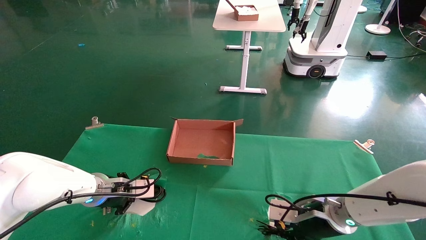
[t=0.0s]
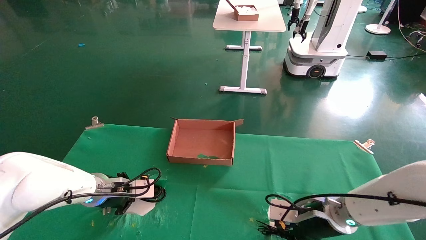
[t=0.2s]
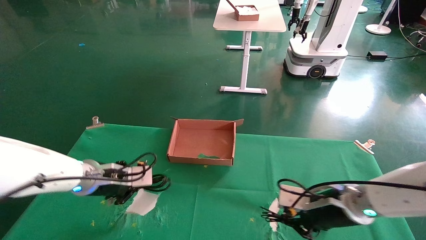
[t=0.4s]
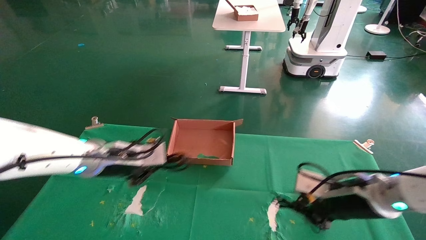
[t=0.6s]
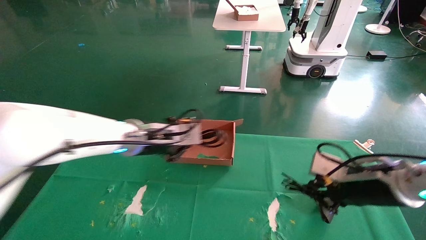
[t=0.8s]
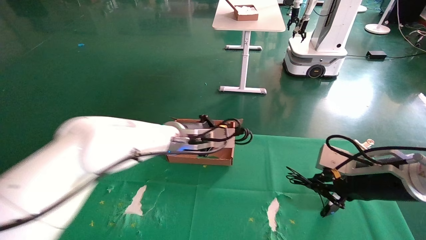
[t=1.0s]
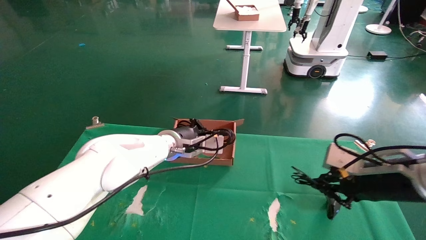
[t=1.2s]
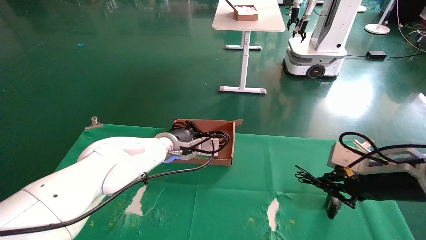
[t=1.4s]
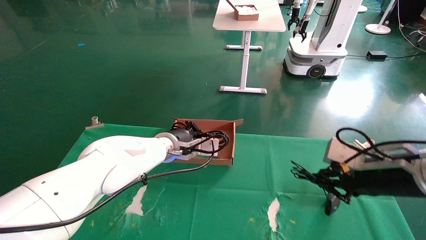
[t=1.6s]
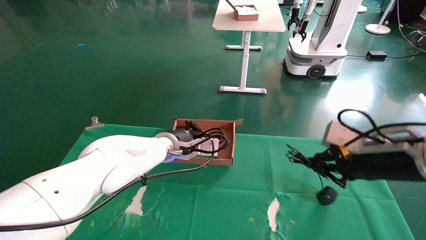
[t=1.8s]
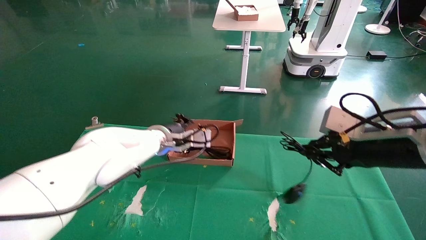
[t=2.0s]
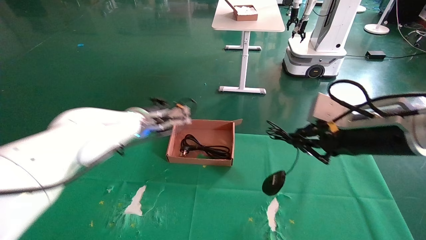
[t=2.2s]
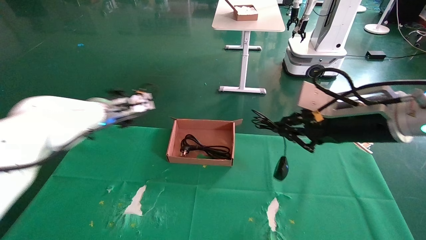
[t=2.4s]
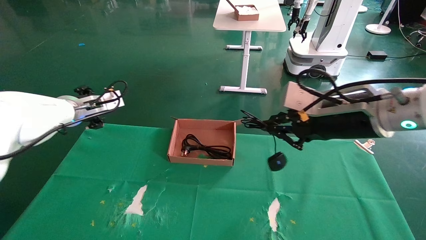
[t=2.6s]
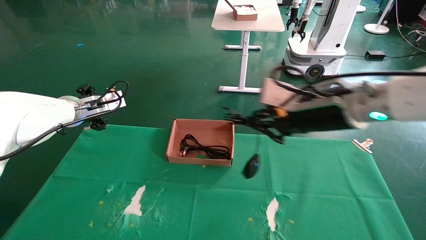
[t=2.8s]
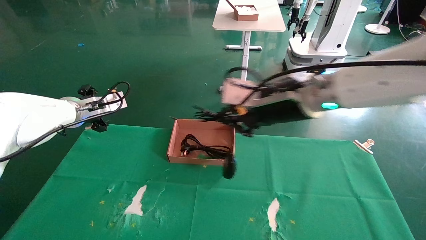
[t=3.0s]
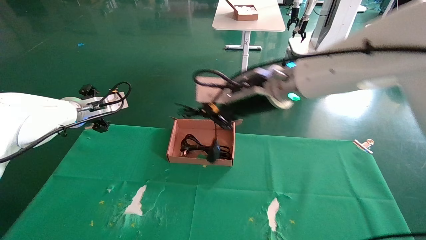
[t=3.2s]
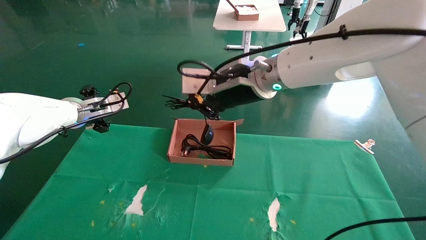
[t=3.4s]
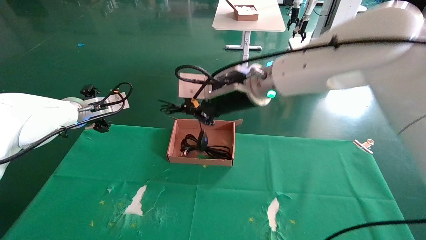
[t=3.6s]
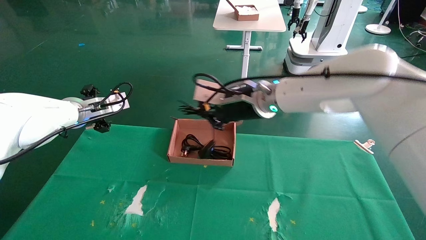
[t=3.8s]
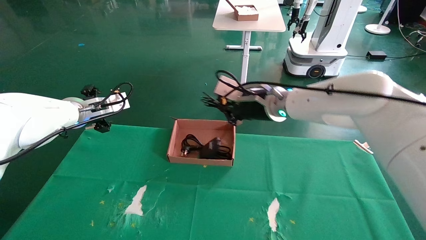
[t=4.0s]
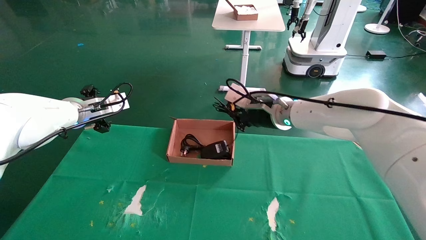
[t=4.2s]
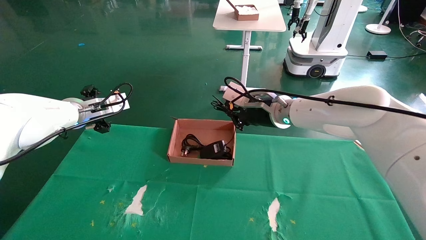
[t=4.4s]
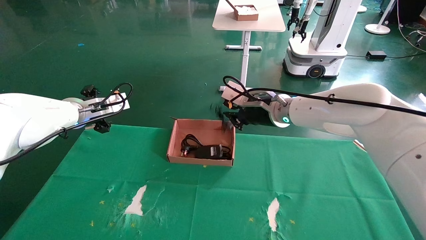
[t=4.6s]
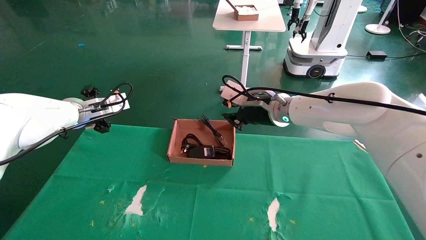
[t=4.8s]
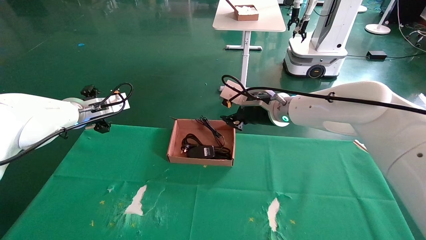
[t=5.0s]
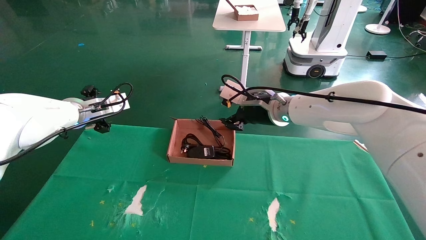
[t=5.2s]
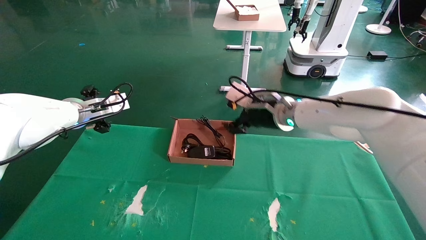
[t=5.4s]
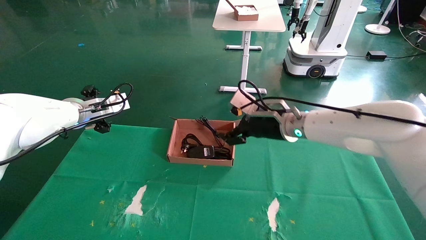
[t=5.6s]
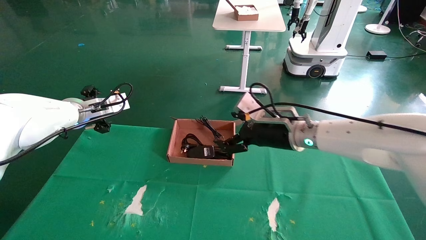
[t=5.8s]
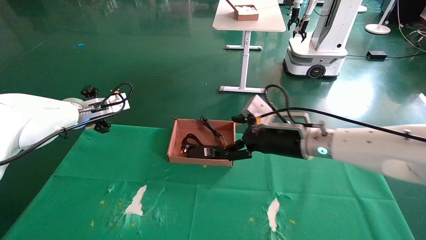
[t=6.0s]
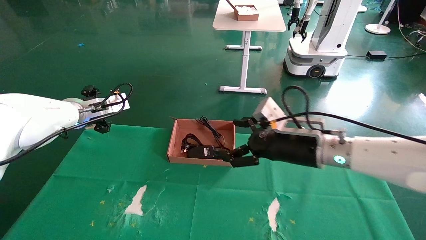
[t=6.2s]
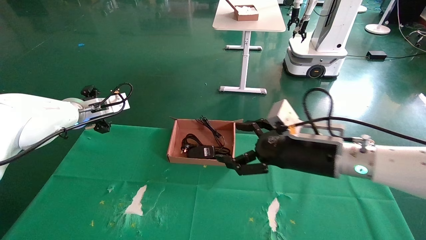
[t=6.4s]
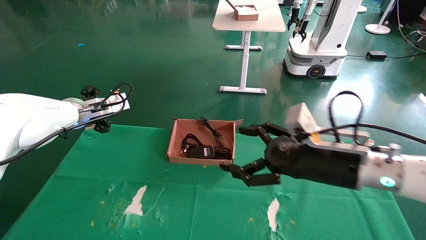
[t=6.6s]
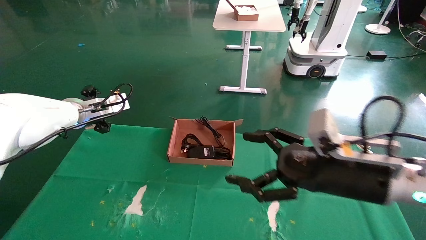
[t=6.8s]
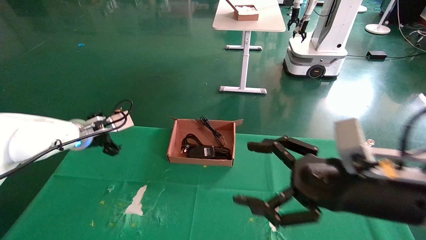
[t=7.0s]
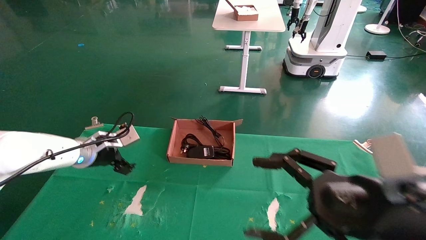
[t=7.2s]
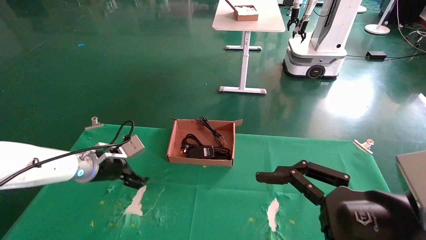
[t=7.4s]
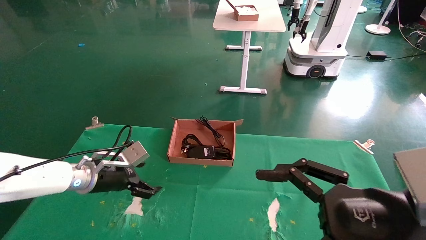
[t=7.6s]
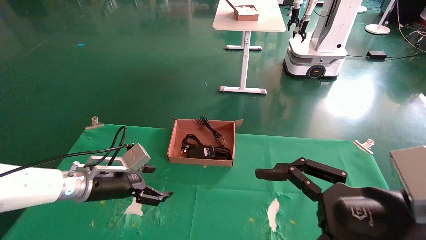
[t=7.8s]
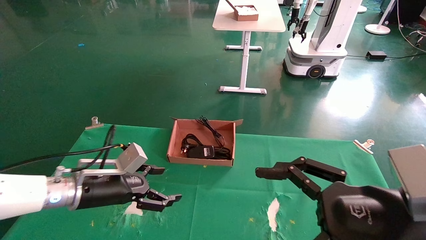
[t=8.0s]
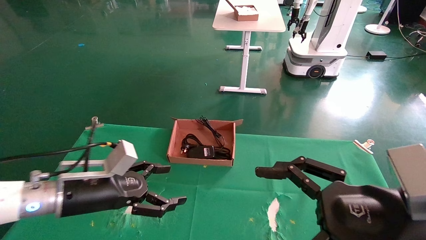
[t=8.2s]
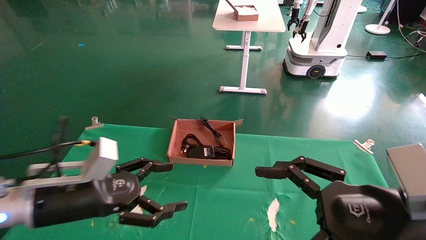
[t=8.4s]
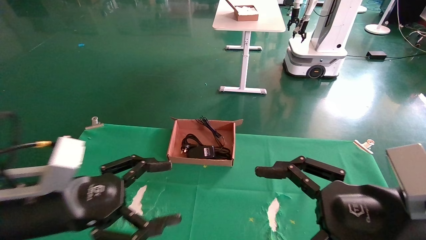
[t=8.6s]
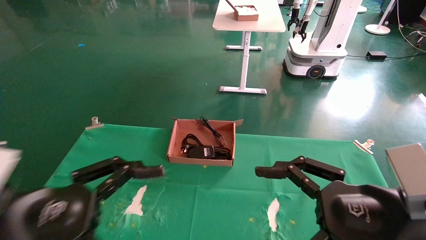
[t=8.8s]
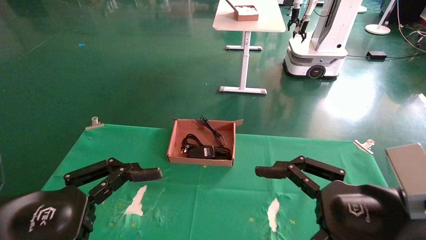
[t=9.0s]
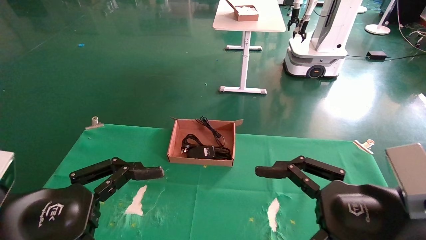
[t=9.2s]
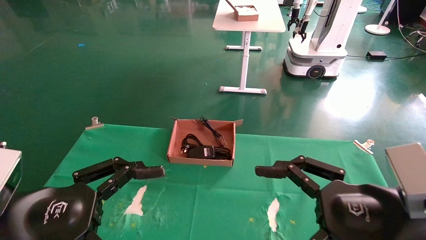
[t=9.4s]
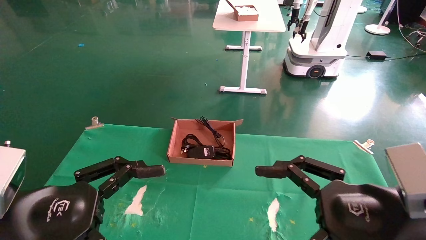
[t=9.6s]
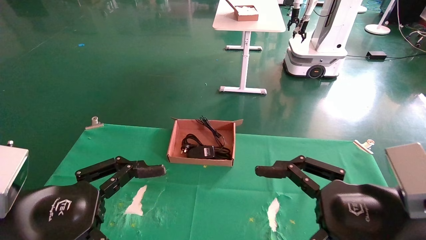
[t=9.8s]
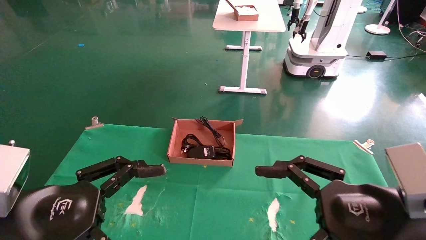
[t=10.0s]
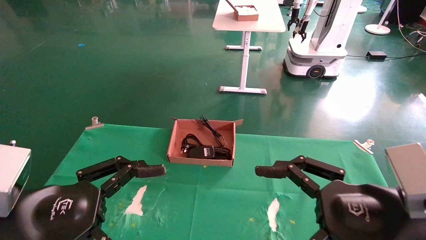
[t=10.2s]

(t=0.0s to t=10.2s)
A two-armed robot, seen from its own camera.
Step, t=1.0s - t=5.2s: Place the mouse and power cord into the box.
t=0.0s - t=1.4s: The right gripper shifts roughly 15 cm upward, to the right and backward; the left gripper shifts approximately 20 cm to the right, upward and forward.
t=1.4s - t=3.0s: The grippers both shift to the left and upward by about 20 cm. The left gripper opens its fingers.
t=3.0s - t=4.4s: The right gripper moves forward and downward, some 15 cm.
t=4.4s - t=5.8s: The right gripper ends up approximately 5 cm from where it was, and opens up.
t=5.8s - t=7.2s: The right gripper goes about 25 cm backward and to the right. The left gripper is displaced downward by some 10 cm.
t=7.2s - t=8.8s: The left gripper heads backward, covering approximately 25 cm.
t=8.8s - t=10.2s: There are only small adjustments of the grippers.
